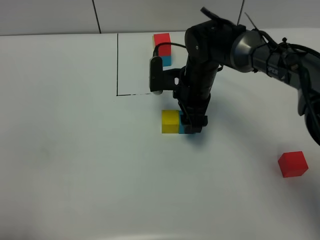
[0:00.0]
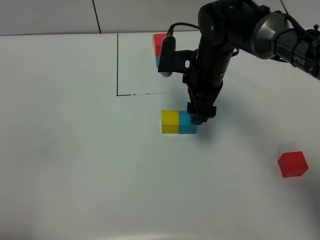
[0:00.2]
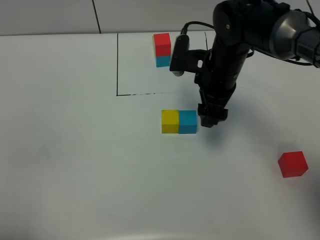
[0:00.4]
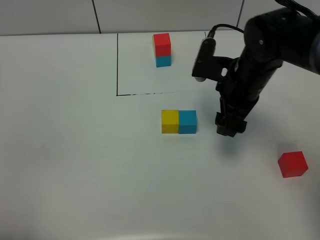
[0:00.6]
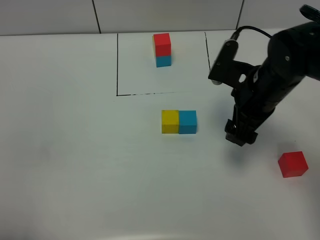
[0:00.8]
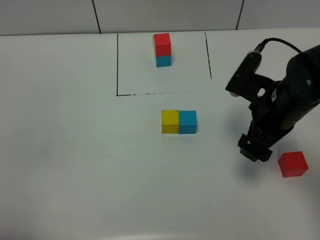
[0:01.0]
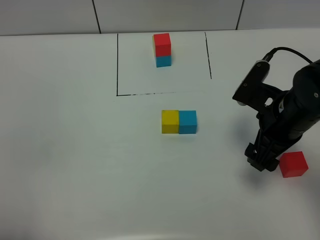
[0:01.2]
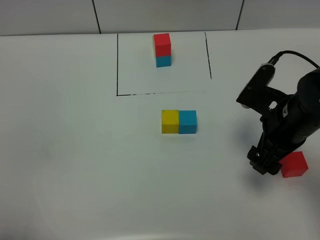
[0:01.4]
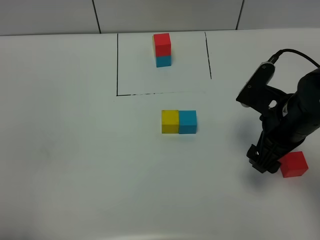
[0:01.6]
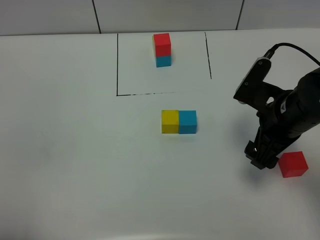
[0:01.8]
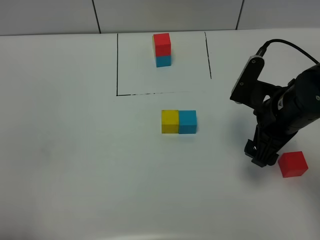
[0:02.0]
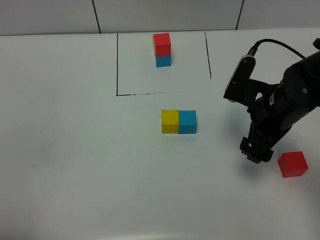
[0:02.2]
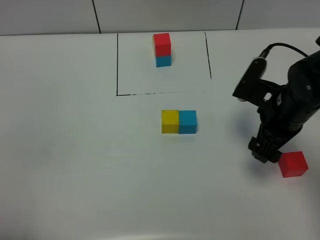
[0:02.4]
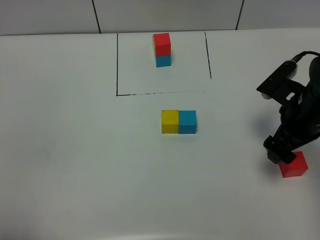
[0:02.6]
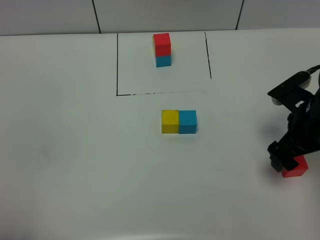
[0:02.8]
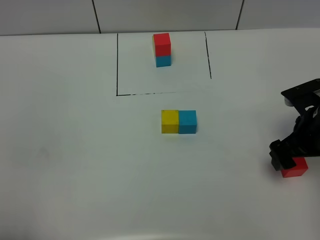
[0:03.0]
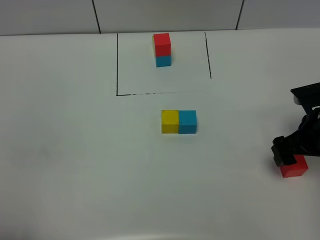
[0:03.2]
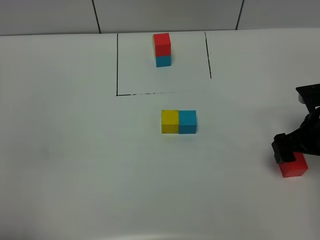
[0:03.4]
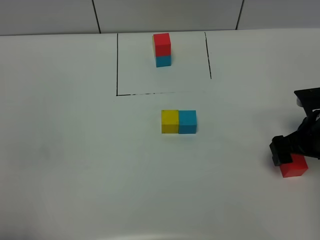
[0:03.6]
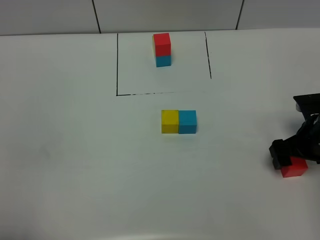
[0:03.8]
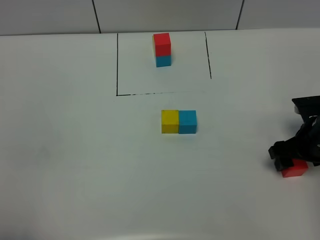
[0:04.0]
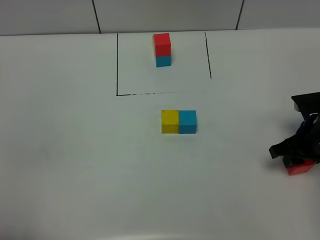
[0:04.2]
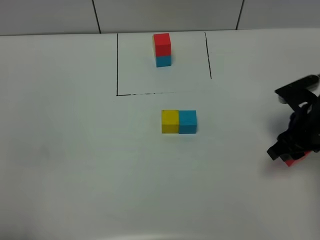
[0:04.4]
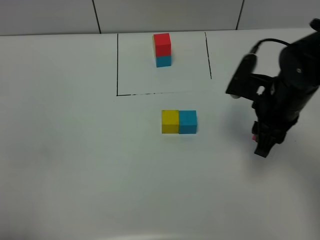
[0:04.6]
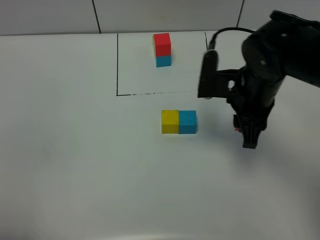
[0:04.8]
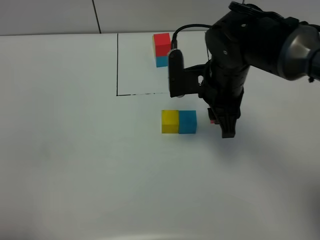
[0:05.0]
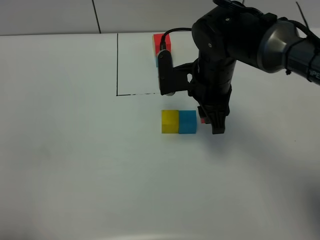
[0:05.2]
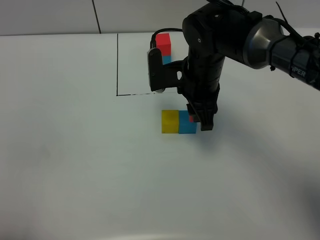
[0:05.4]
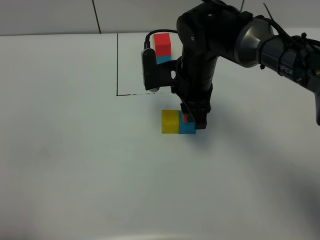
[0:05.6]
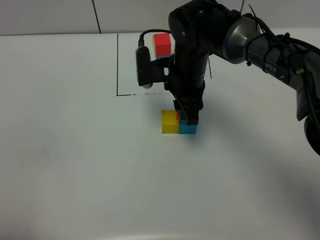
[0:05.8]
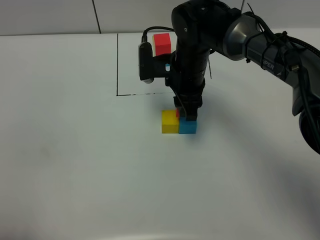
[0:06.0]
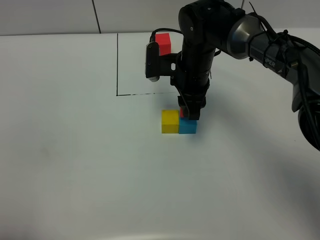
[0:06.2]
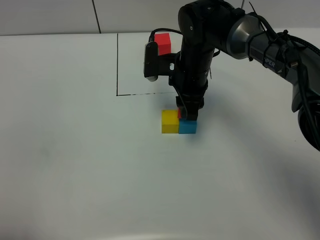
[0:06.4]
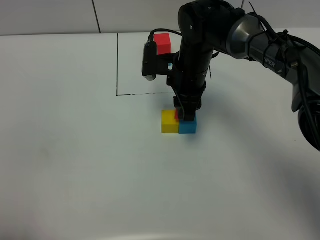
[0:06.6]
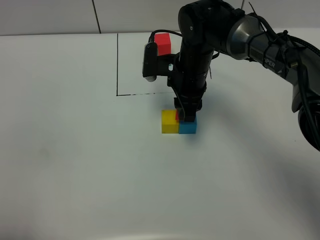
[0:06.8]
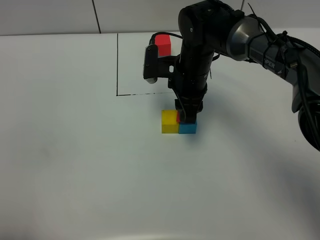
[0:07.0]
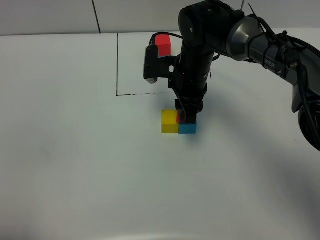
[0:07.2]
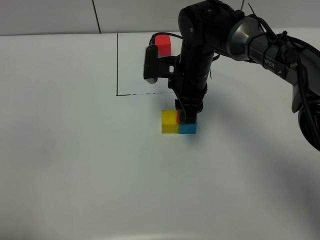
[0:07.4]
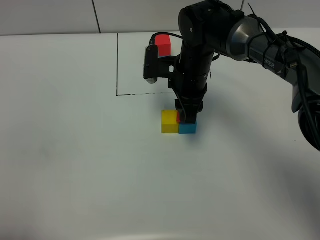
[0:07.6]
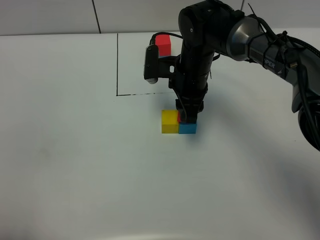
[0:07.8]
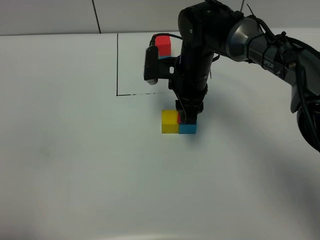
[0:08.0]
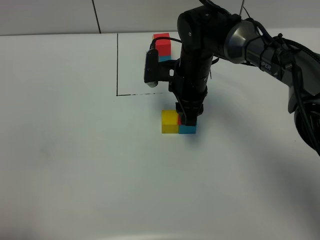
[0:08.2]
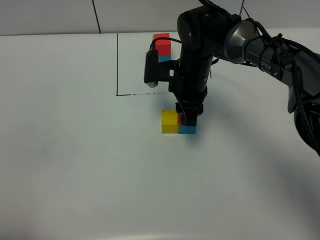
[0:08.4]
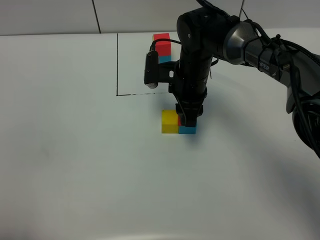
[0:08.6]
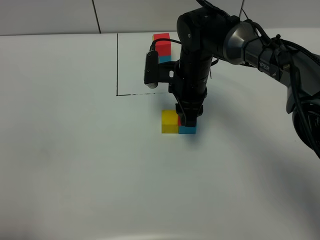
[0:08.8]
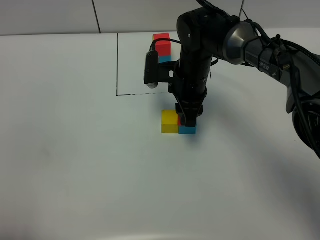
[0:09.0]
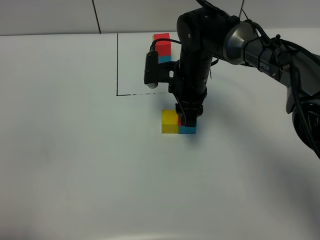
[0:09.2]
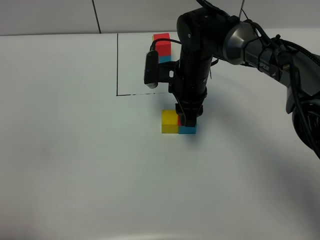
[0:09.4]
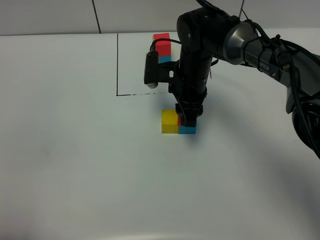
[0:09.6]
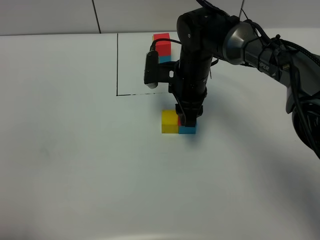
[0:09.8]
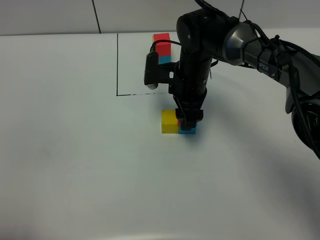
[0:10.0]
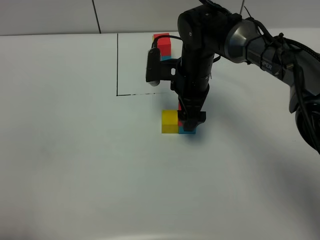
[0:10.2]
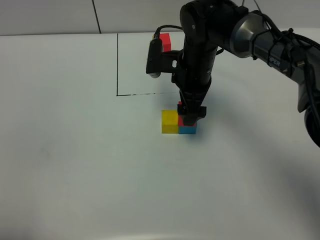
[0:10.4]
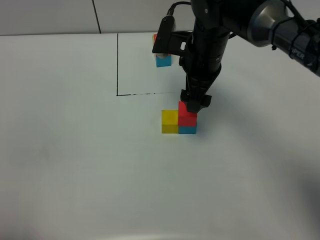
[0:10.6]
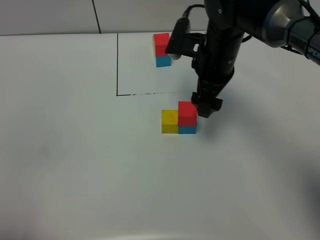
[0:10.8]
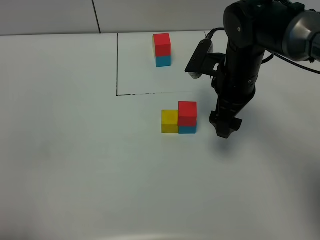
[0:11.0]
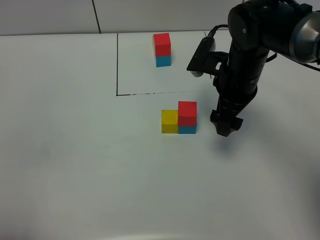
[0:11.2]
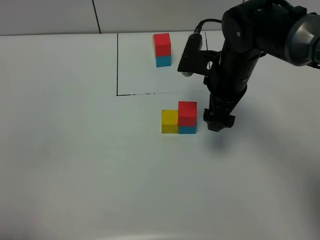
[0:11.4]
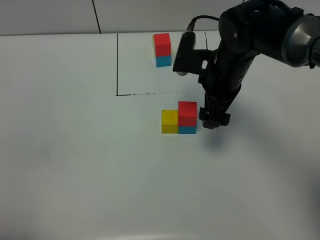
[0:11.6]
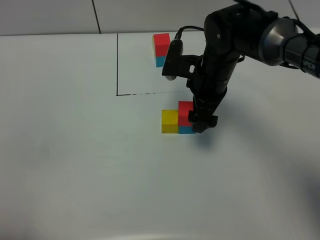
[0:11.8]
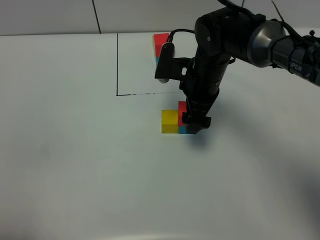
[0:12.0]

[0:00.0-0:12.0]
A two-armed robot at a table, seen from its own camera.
Task of the whole recording: According to the building block template in front, assemble the scattered blocks together.
Step, 0:00.0 to 0:10.0: Put the red build block on the blue build block.
0:00.0 to 0:01.6: The right gripper moves backward and to the right, roughly 20 cm.
0:01.6 to 0:03.0: The right gripper moves to the right, roughly 5 cm.
0:03.0 to 0:04.4: The right gripper closes its fingers.
0:04.4 to 0:06.0: The right gripper shifts some 25 cm to the left and forward.
0:06.0 to 0:07.6: There are only small adjustments of the grippers.
0:07.6 to 0:09.0: Both grippers stay about where they are.
0:09.0 to 0:10.4: The right gripper opens.

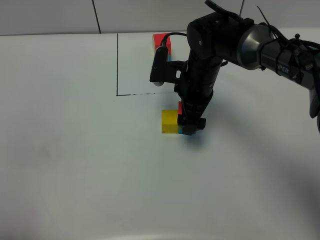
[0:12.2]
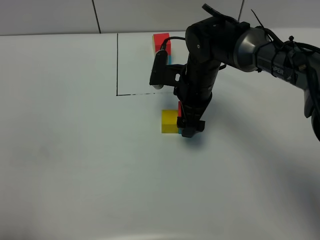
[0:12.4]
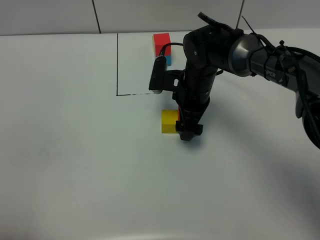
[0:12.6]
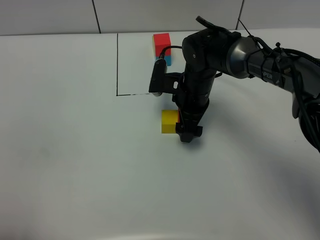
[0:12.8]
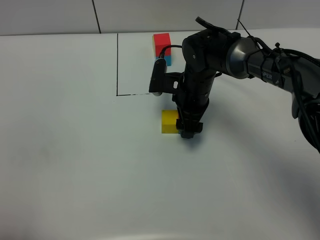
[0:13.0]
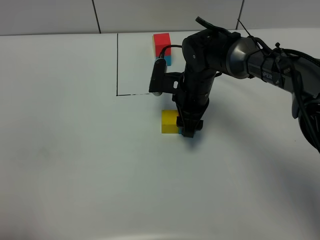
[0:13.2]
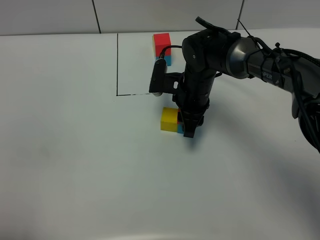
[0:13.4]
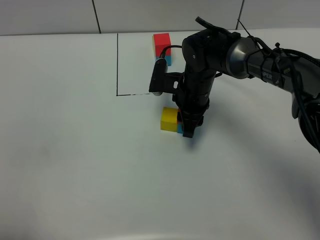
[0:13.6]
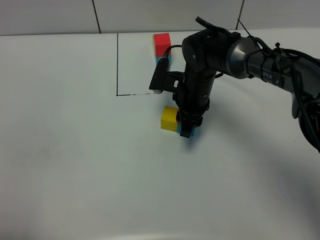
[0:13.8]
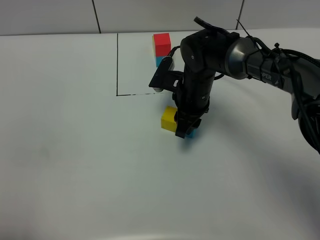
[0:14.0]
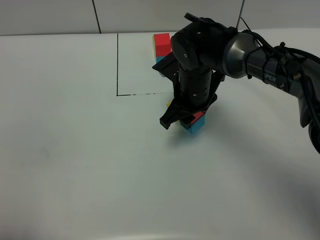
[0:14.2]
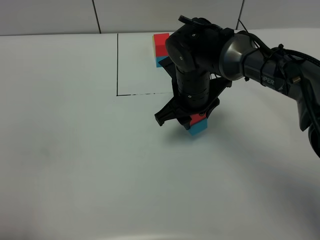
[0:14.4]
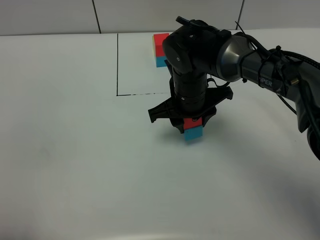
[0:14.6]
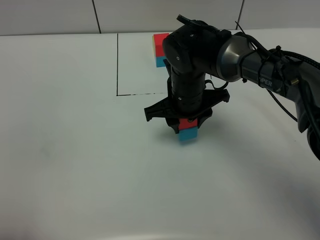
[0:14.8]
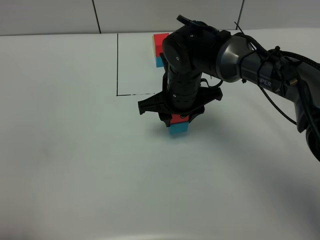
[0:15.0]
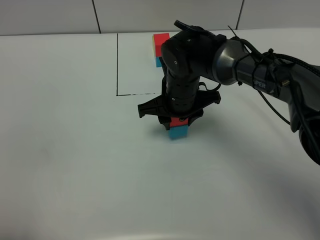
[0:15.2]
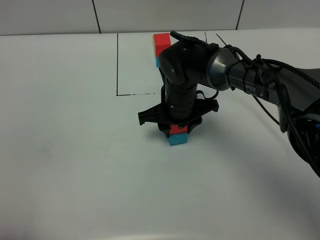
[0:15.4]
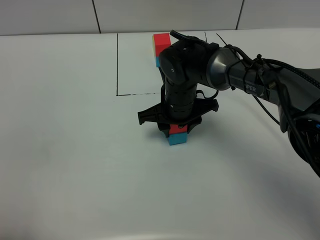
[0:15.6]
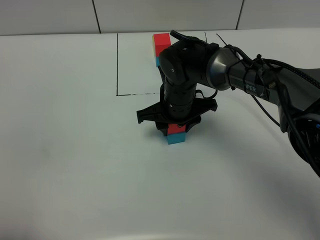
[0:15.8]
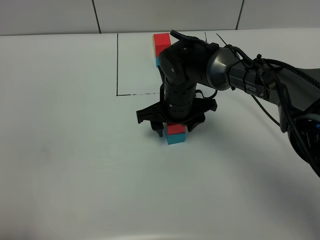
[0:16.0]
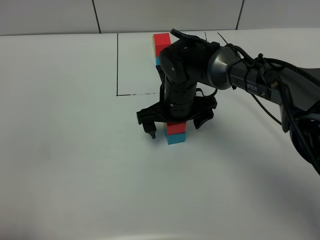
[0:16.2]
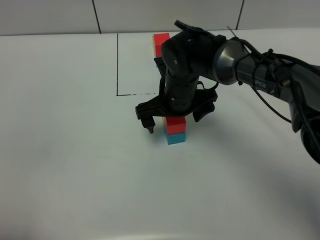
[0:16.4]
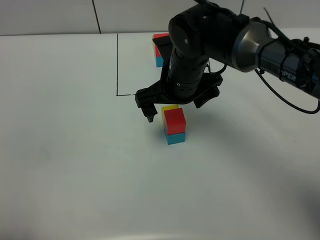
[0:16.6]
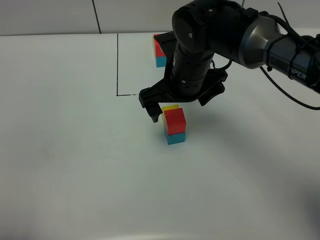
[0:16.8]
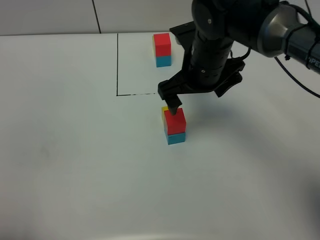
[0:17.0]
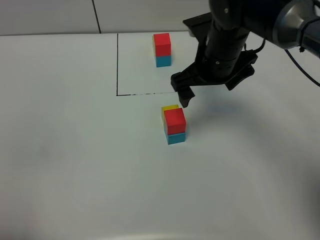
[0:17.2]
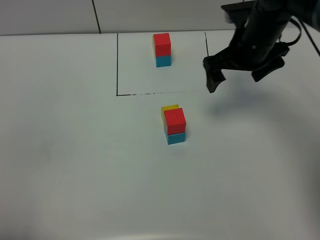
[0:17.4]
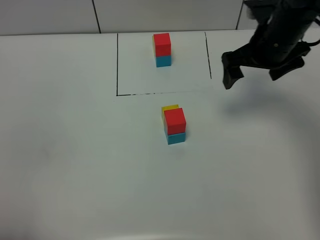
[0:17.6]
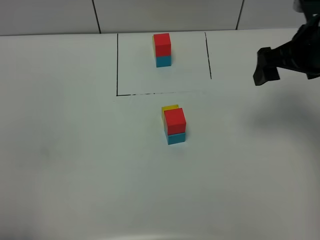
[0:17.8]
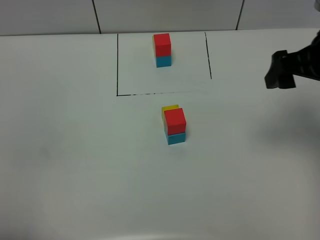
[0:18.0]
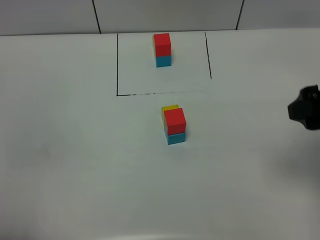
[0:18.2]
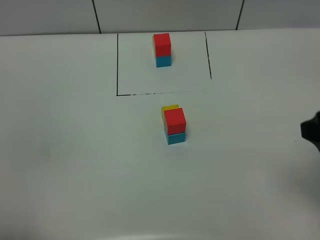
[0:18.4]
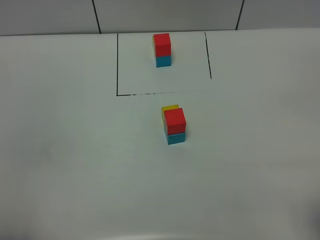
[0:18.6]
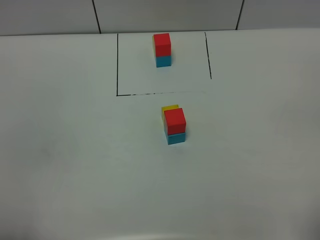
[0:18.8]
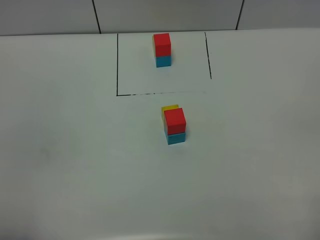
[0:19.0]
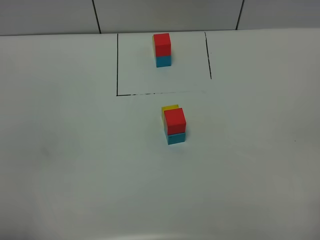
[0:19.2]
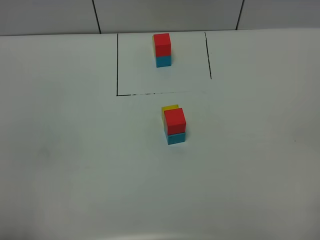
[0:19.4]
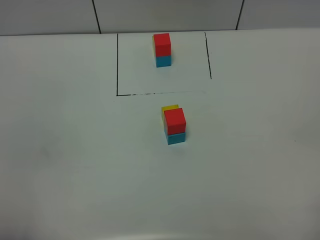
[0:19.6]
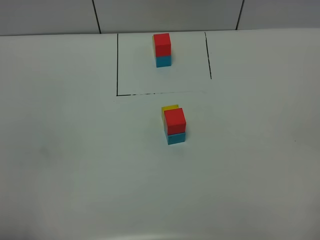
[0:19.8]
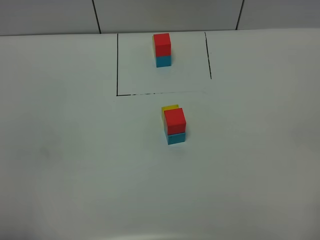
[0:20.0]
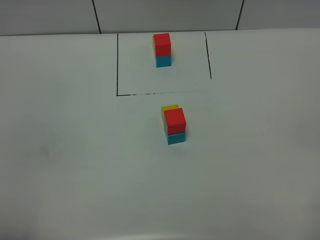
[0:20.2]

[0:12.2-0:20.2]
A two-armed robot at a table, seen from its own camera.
Task of the whole recording: According to the building block template in front, assemble the scattered blocks together.
Step, 0:12.2 to 0:16.0: move the build block to the center of the table.
0:12.2 to 0:13.8: The right gripper closes its fingers.
0:15.4 to 0:17.0: The right gripper heads upward, covering approximately 10 cm, and opens.
0:17.0 to 0:18.6: The right gripper moves backward and to the right, roughly 35 cm.

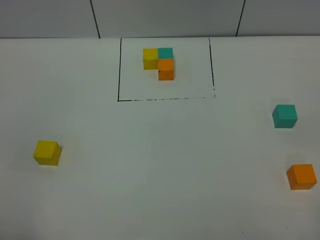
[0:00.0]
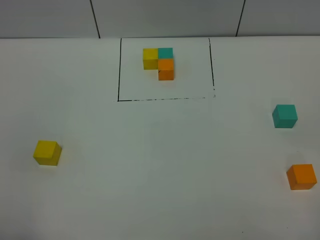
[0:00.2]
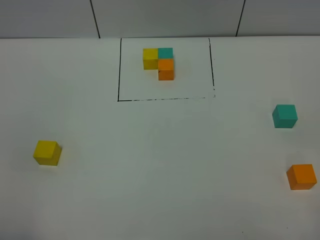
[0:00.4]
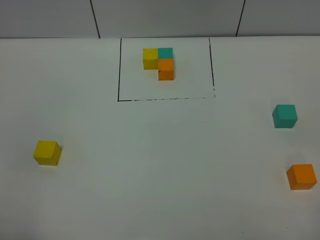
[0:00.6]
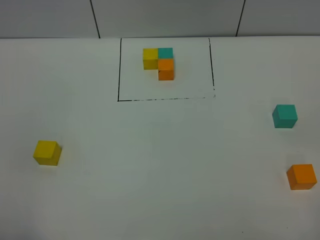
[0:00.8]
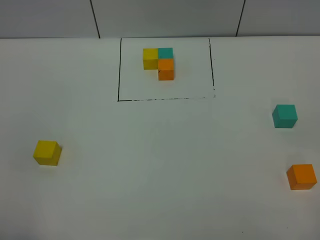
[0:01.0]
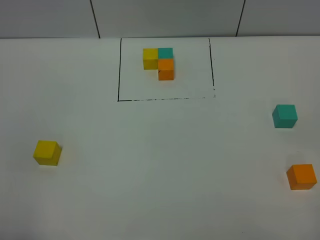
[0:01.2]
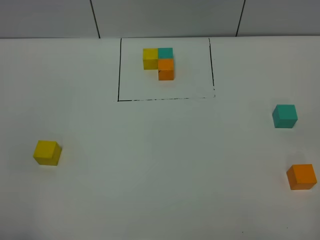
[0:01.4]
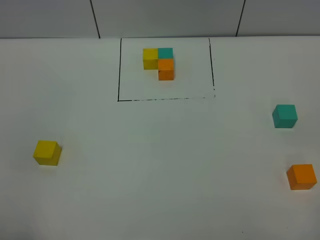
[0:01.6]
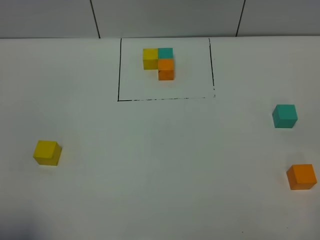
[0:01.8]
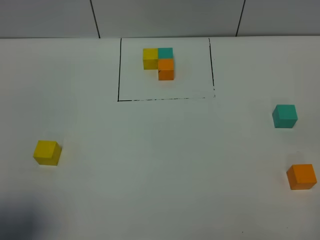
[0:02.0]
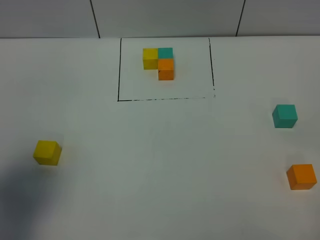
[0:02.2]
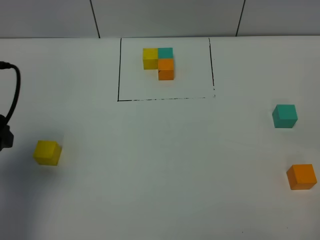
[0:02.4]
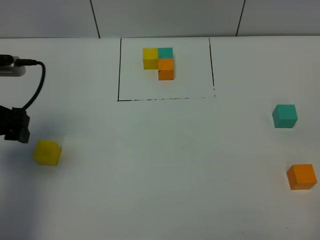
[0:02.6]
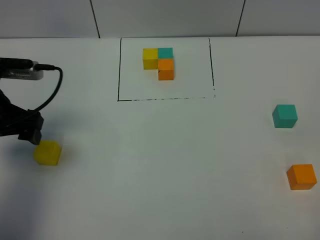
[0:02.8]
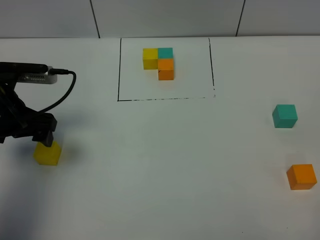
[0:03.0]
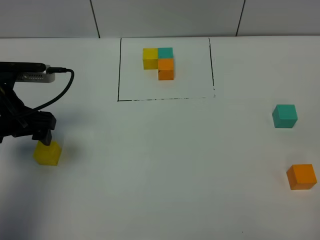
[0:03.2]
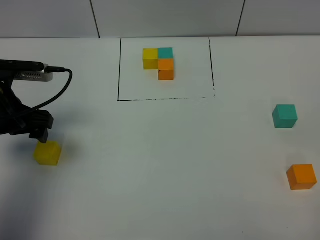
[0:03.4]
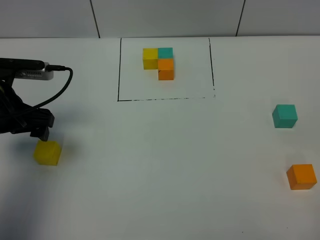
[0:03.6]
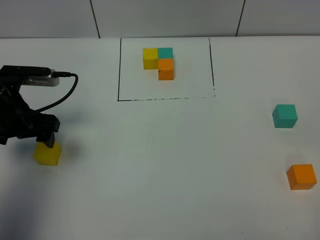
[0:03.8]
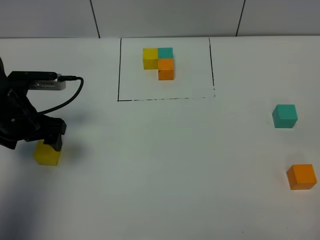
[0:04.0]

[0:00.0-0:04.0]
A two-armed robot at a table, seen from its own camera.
Task of the whole recording: According to the building block template in front, assemble the scattered blocks together.
0:00.0 to 0:01.4: The two grippers keep their place.
0:01.4 to 0:02.6: The left gripper heads forward, covering approximately 25 cm, and opens its fingers.
0:02.6 to 0:04.0: The left gripper goes roughly 5 cm downward.
